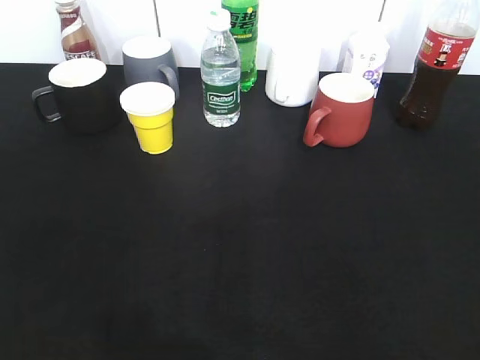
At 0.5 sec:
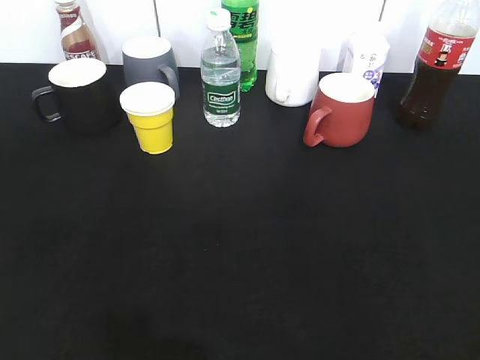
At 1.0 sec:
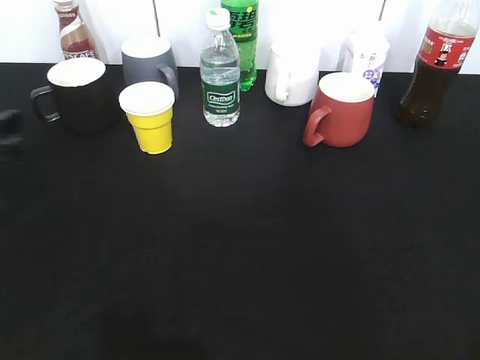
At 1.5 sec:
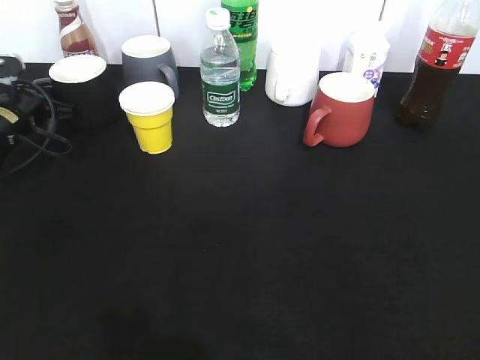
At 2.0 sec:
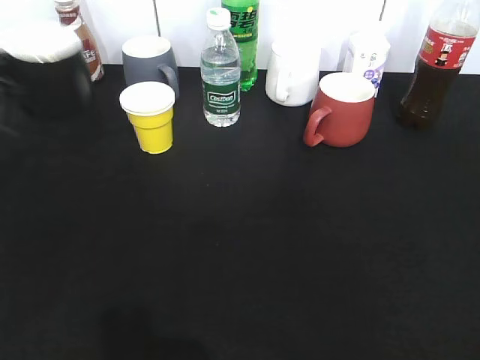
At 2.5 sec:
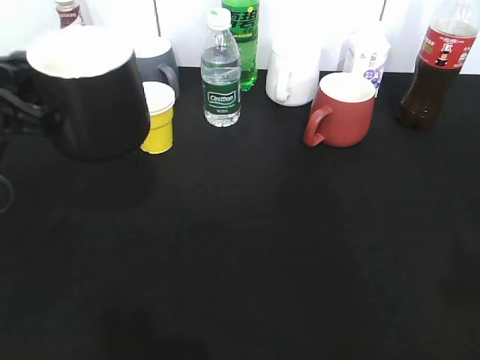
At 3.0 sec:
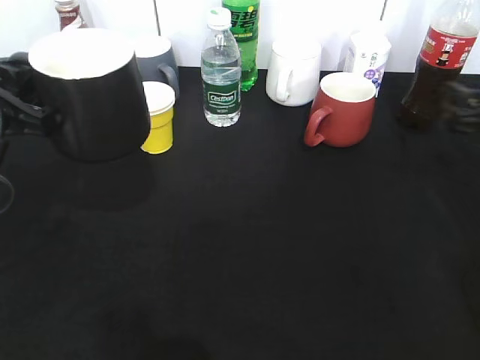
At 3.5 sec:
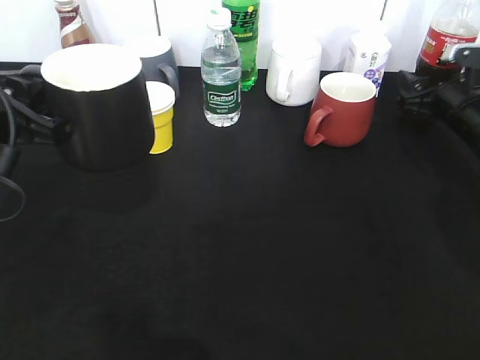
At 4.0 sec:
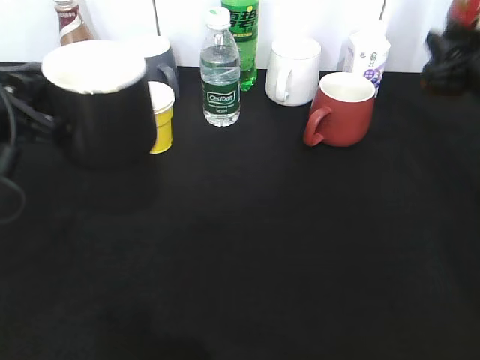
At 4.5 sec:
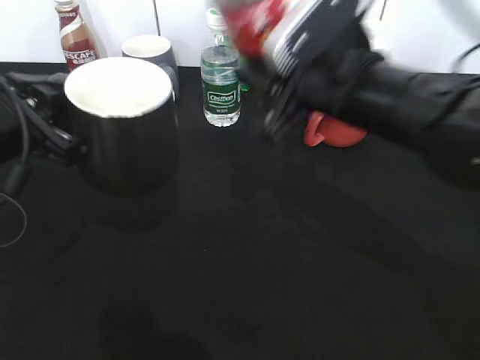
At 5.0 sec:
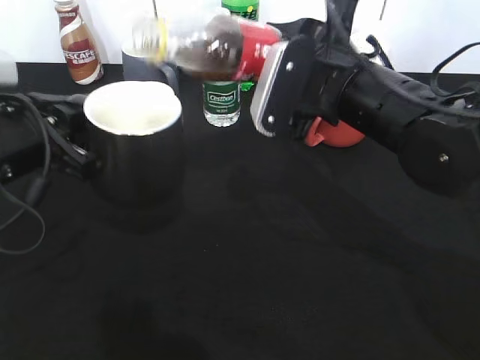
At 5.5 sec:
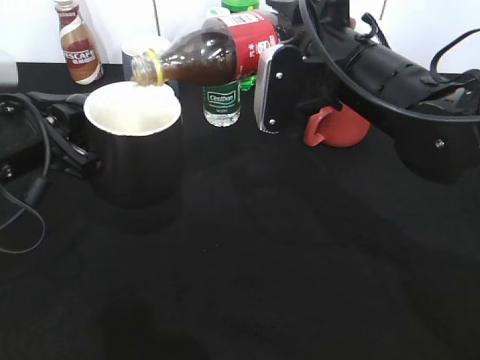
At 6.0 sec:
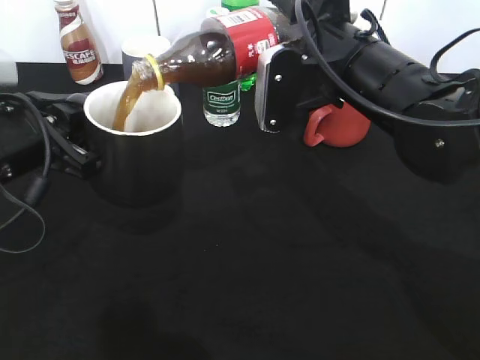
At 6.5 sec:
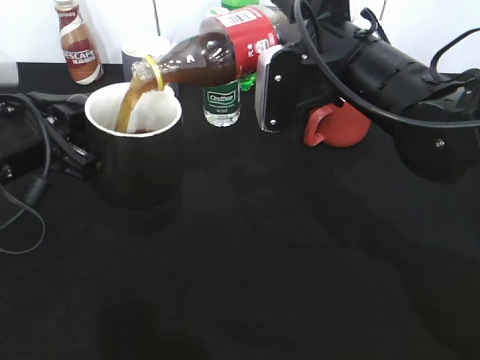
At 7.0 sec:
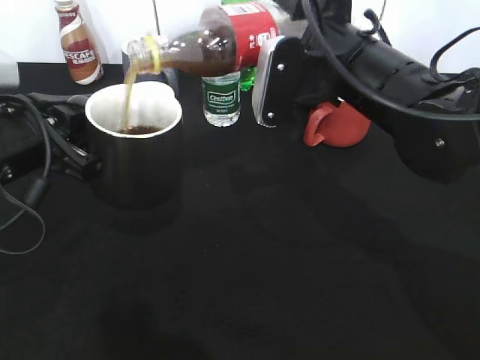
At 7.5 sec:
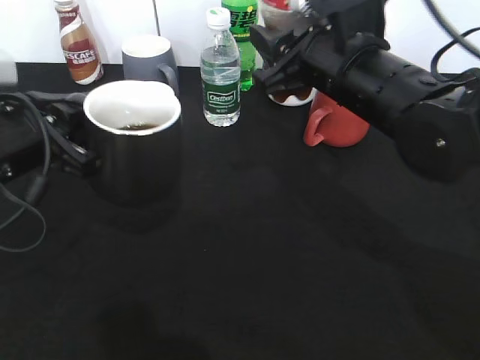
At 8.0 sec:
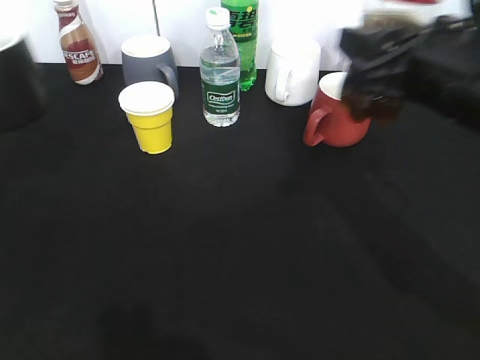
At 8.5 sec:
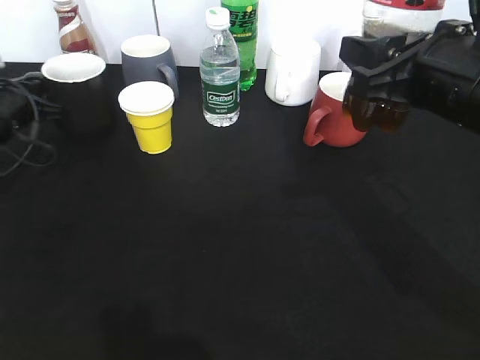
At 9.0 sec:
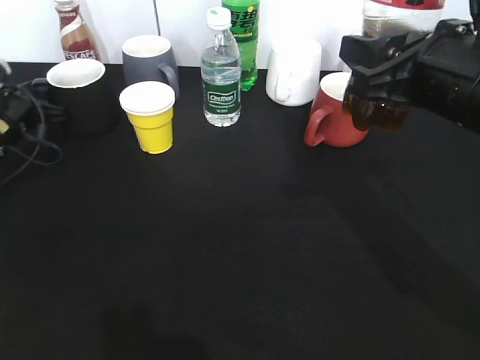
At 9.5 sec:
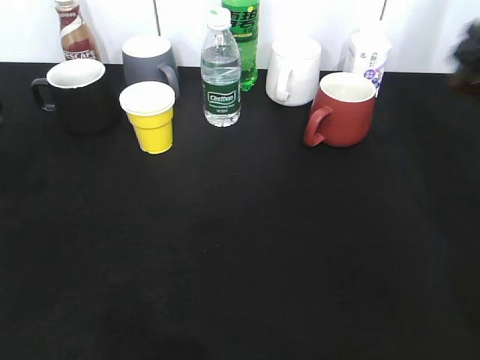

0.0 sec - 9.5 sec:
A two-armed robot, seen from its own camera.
Step, 0.0 sec - 1.5 sec: Grasp the black cup with left gripper.
Step, 2.0 sec - 2.5 sec: Lift the black cup with left gripper.
Step, 3.0 sec - 3.5 sec: Grasp the bottle with cola with right gripper.
Step, 4.0 sec - 7.0 sec: Pour the cola from bottle to cup with right gripper.
Step, 7.5 sec - 9.0 sec: Place the black cup on the table with left gripper.
0.0 sec - 2.0 sec: The left gripper heads forward, covering some 30 cm, and closes.
2.0 sec - 4.0 sec: The left gripper moves backward and to the right, some 10 cm. Meanwhile the right gripper shifts roughly 35 cm forward, and closes its fingers.
4.0 sec - 5.5 sec: The right gripper is displaced to the left by about 20 cm.
7.5 sec - 9.5 sec: The right gripper moves to the right, some 20 cm; the left gripper moves to the left, roughly 10 cm, reaches roughly 15 cm forward, then returns, and opens up.

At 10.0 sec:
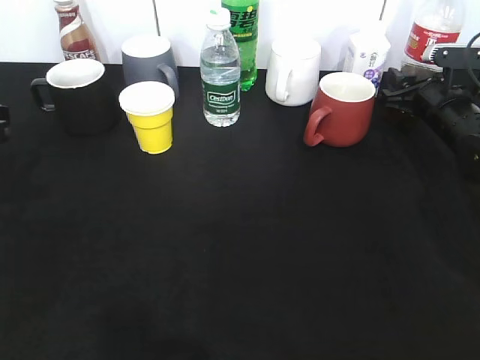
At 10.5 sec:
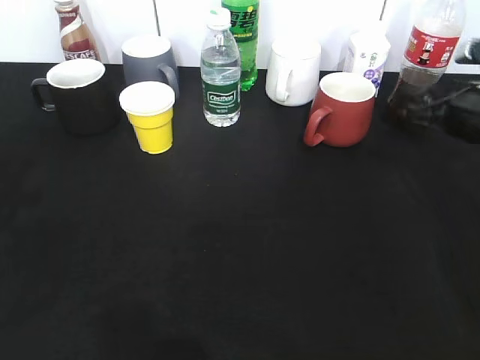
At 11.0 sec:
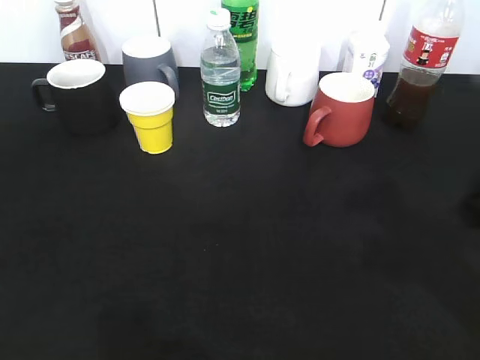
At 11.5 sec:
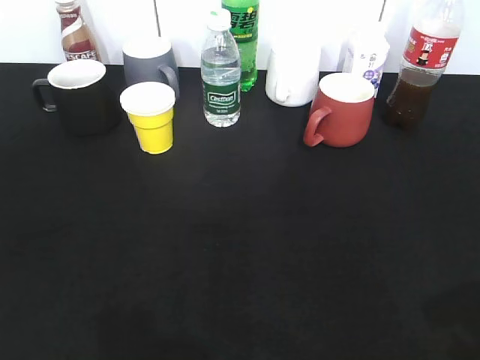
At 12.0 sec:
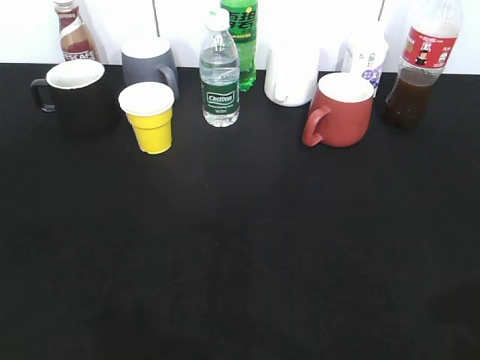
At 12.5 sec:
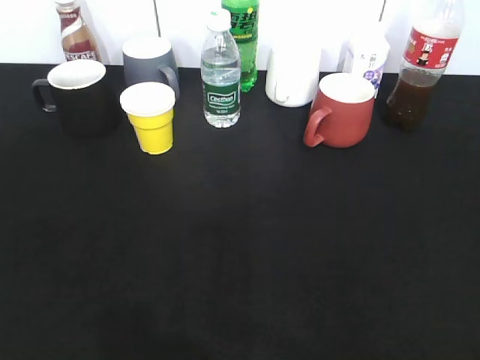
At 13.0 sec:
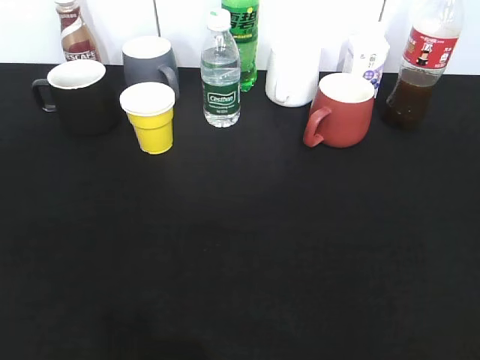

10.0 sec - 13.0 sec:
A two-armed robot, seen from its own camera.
10.0 sec - 11.5 sec: The right gripper moves backward and upward, some 40 cm, and opens its fingers. The left gripper moves backward, about 20 cm.

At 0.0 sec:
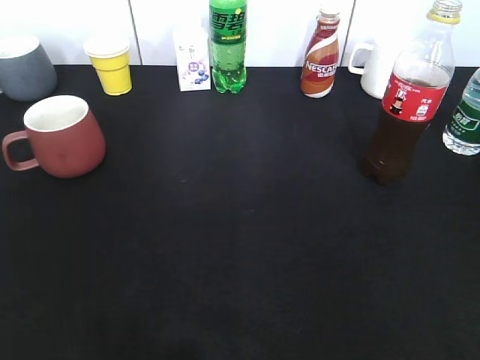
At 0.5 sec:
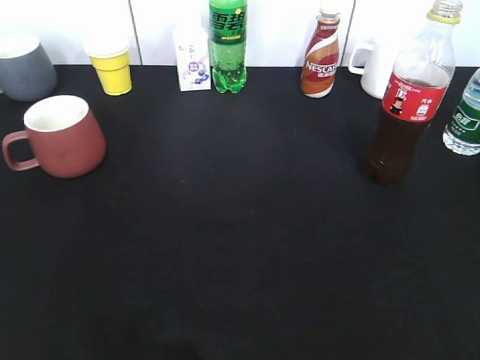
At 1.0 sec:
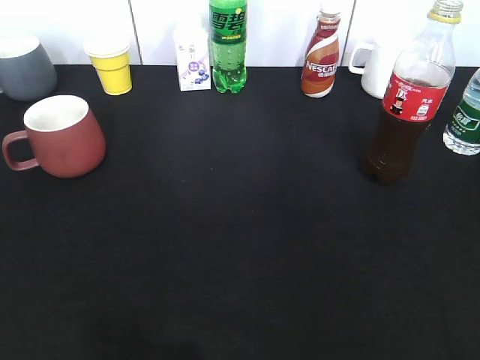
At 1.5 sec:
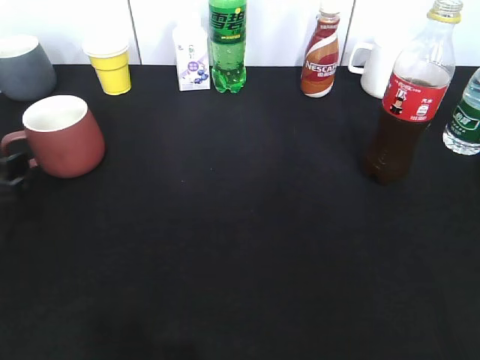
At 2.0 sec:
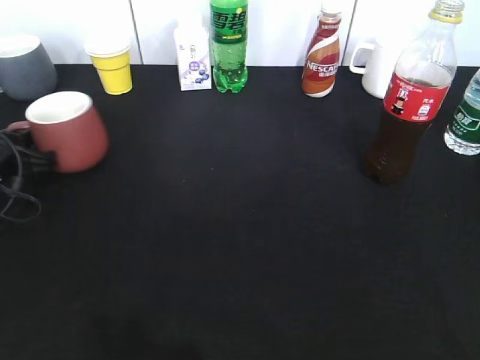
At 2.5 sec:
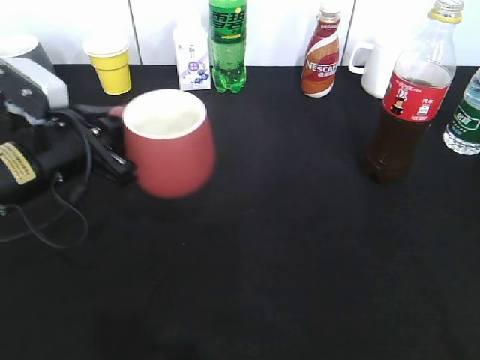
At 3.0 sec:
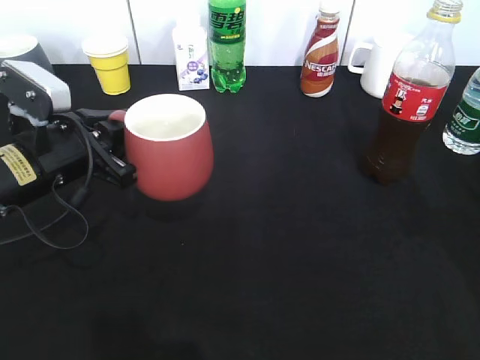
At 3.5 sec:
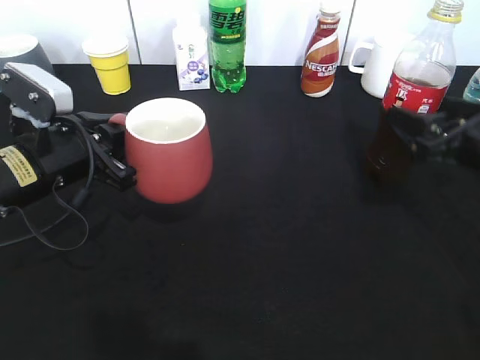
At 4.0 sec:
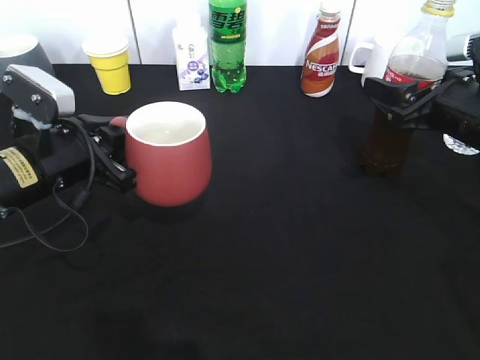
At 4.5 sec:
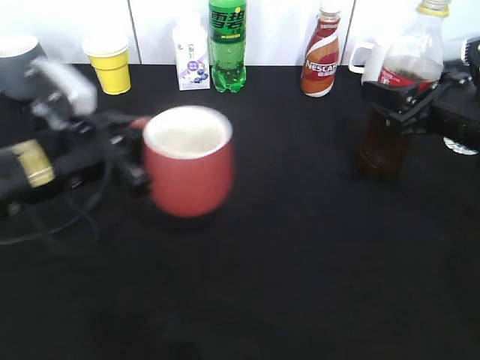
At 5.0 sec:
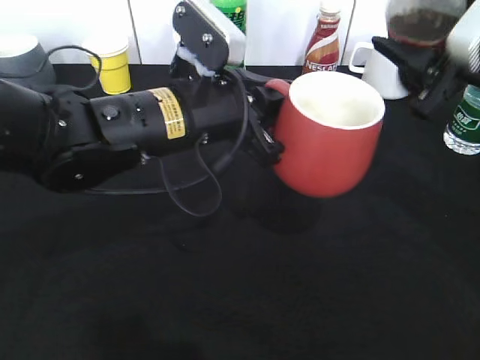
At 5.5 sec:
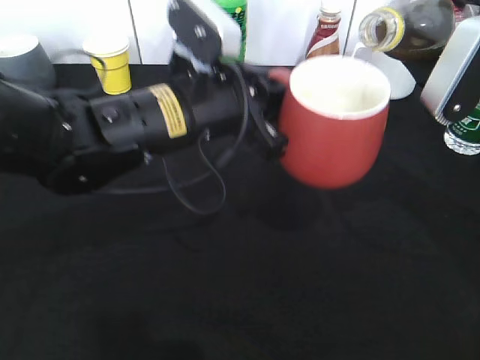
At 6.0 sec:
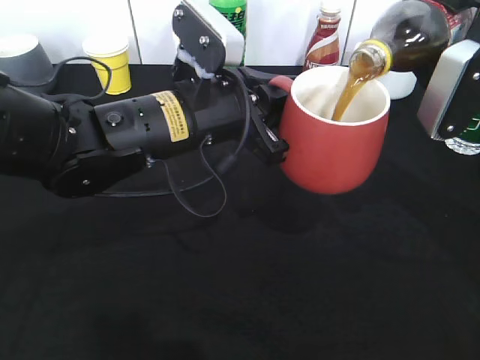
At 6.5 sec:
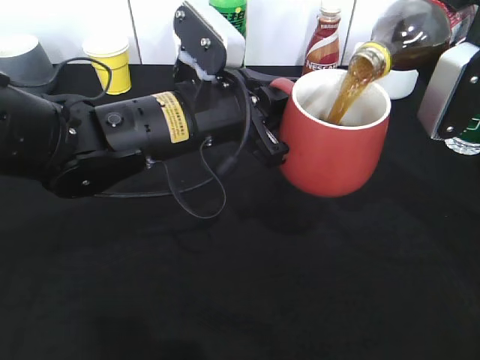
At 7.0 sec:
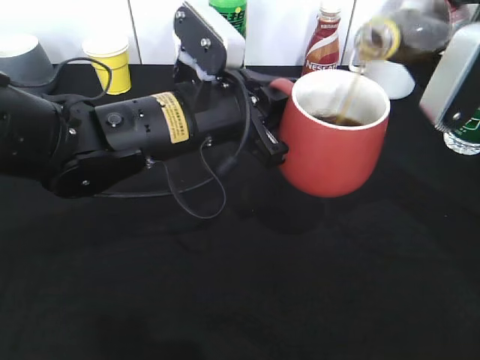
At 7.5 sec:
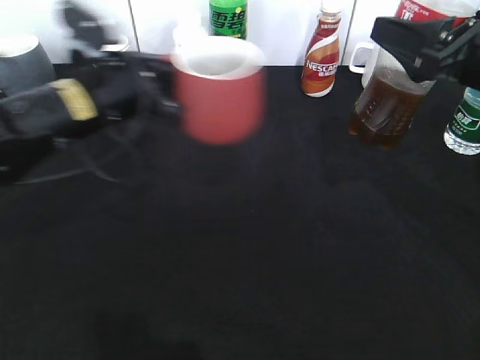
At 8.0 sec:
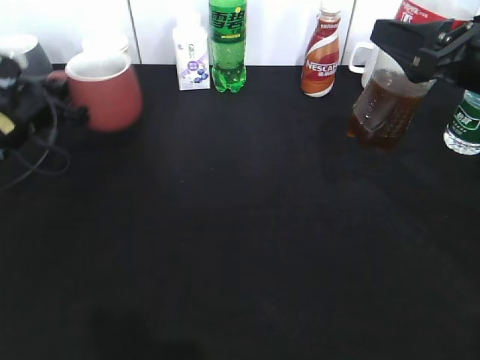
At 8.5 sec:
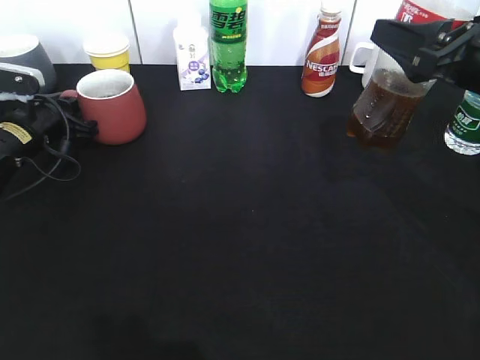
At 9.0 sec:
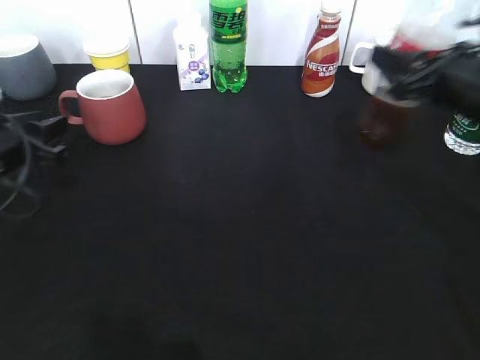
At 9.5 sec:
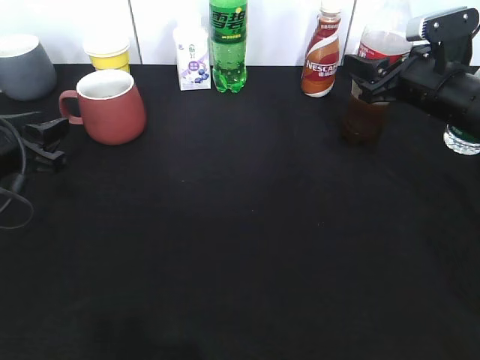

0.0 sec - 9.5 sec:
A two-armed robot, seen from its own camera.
Step, 2.0 sec - 3.0 sec: Lift the red cup with left gripper.
Step, 3.5 sec - 4.0 sec: Grasp the bottle with cola with right gripper.
Step, 4.5 sec - 7.0 sec: Pour the cola from bottle to cup with right gripper.
0.0 sec - 2.0 sec: The left gripper goes approximately 35 cm forward and downward, and closes.
2.0 sec - 4.0 sec: The right gripper shifts about 30 cm forward, and opens and closes again. Meanwhile the left gripper goes approximately 10 cm to the right and upward.
4.0 sec - 5.5 sec: The right gripper heads upward, covering approximately 10 cm, and closes its fingers; the left gripper moves to the right, about 15 cm.
5.5 sec - 7.5 sec: The left gripper shifts some 10 cm to the left.
7.5 sec - 9.5 sec: The left gripper travels to the left and downward by about 15 cm, and opens. The right gripper shifts approximately 15 cm forward and downward.

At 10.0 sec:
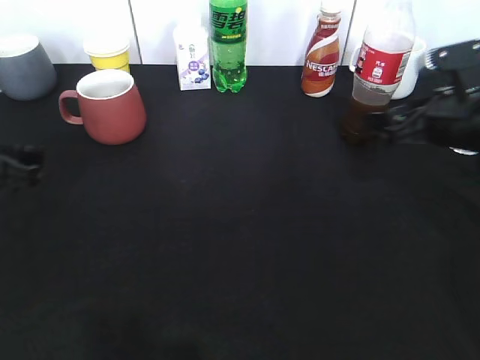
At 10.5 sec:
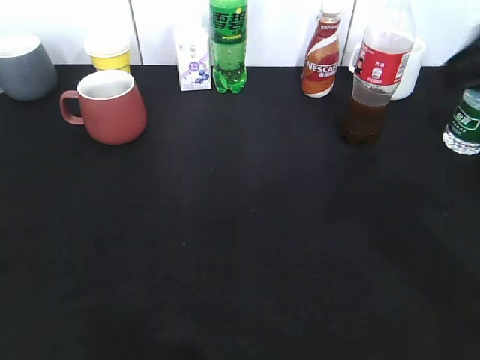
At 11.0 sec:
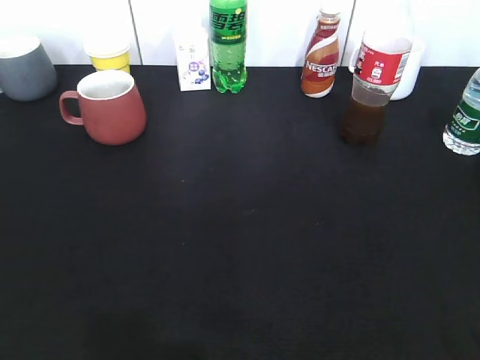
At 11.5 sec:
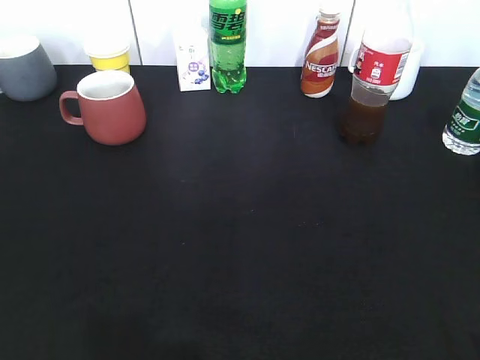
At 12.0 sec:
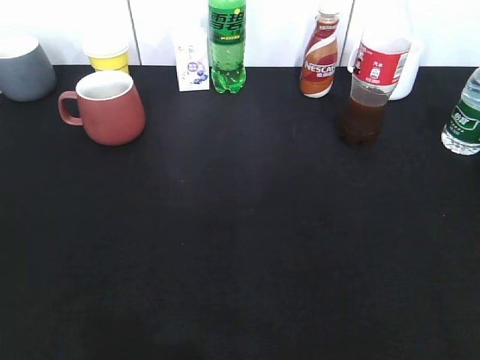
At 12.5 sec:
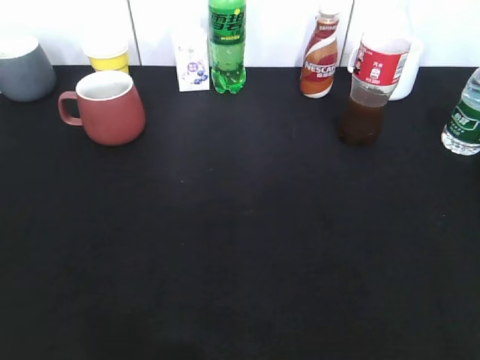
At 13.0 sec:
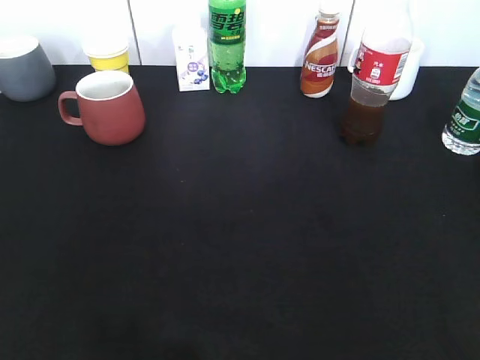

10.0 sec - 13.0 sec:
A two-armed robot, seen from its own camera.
10.0 sec - 11.5 sec: The right gripper heads backward, covering some 30 cm, and closes; the left gripper is displaced backward and upward by approximately 30 cm.
